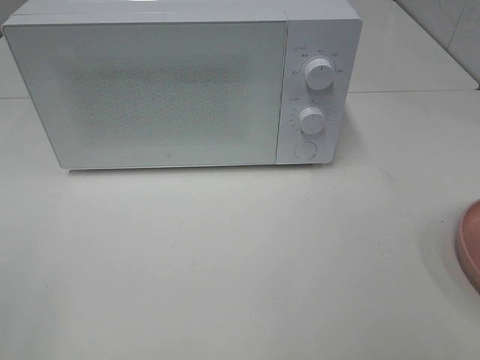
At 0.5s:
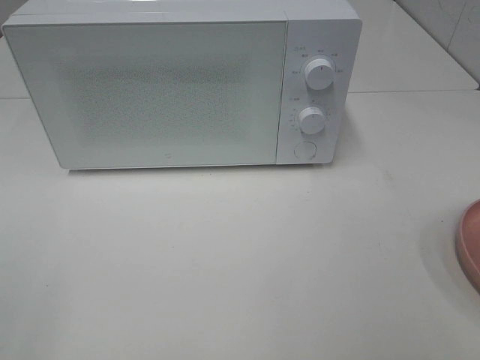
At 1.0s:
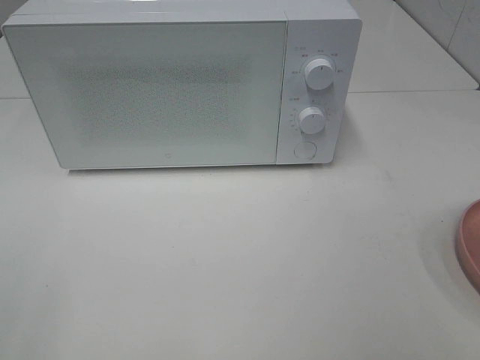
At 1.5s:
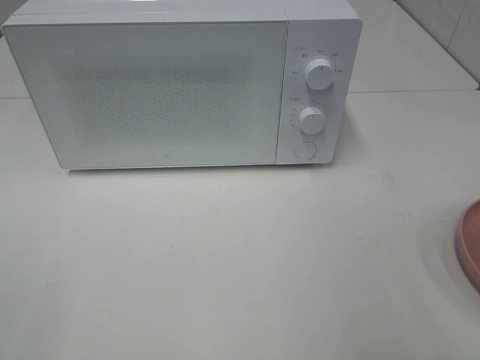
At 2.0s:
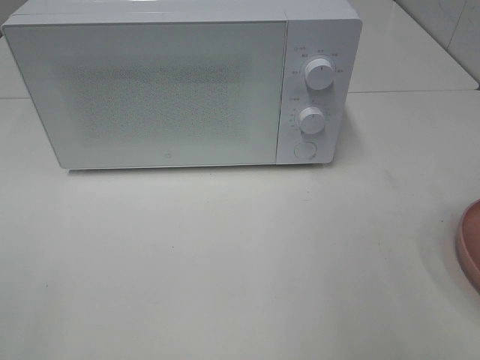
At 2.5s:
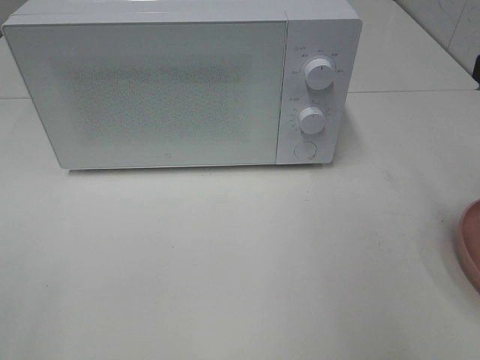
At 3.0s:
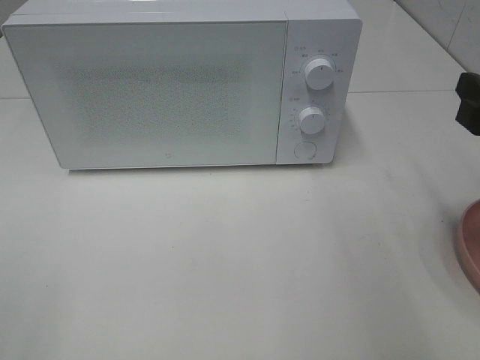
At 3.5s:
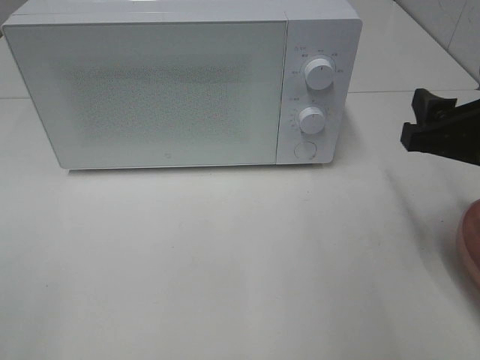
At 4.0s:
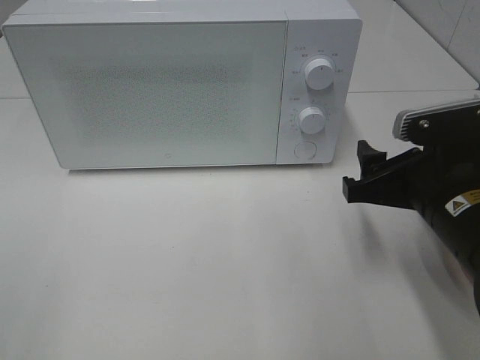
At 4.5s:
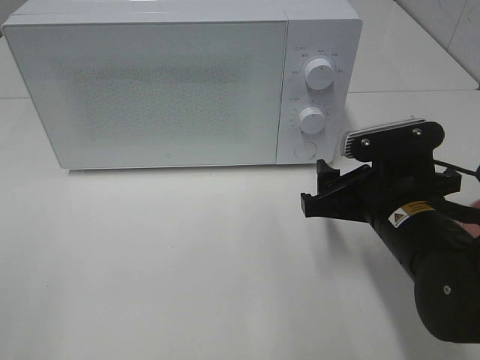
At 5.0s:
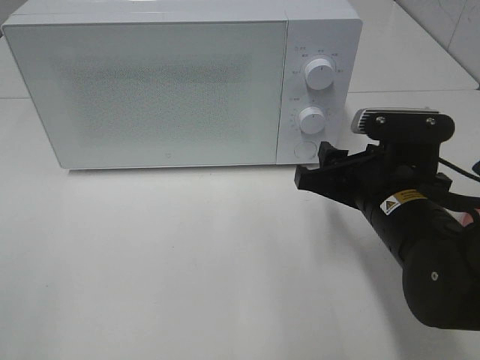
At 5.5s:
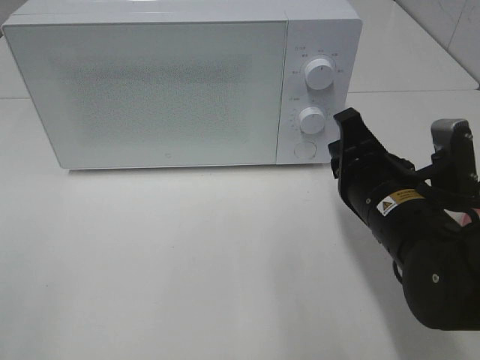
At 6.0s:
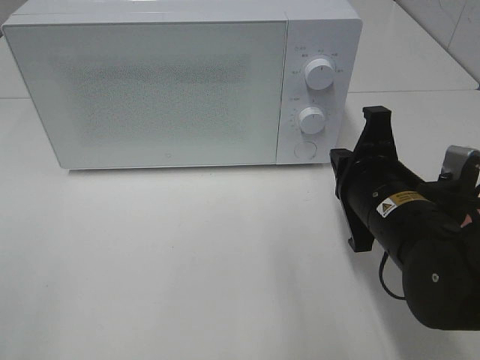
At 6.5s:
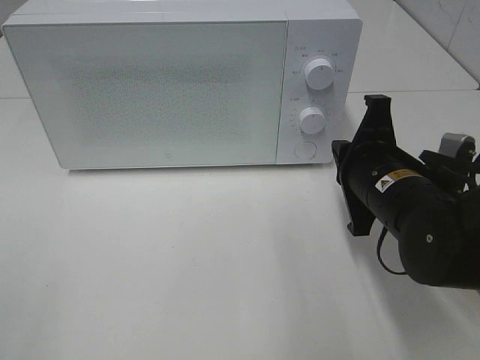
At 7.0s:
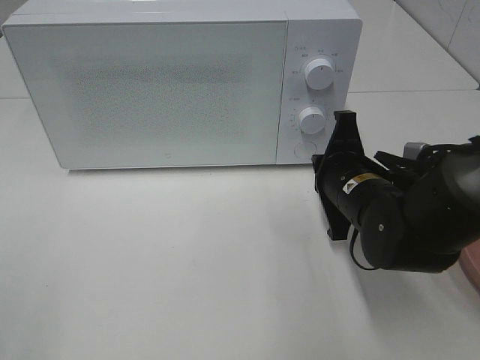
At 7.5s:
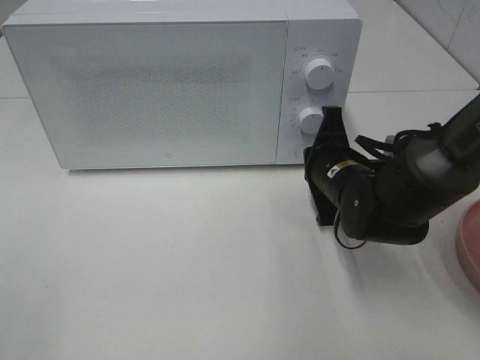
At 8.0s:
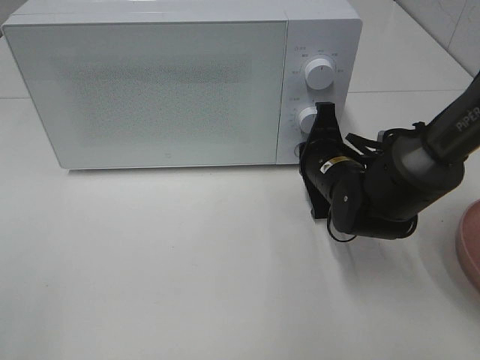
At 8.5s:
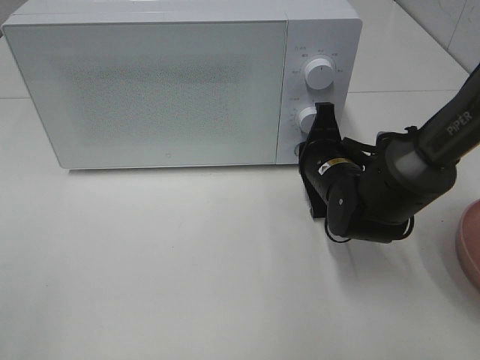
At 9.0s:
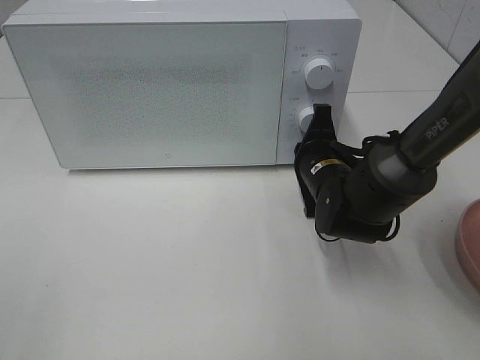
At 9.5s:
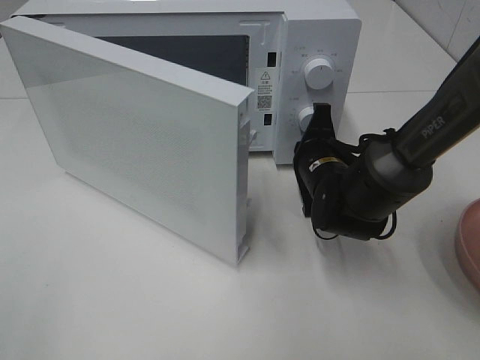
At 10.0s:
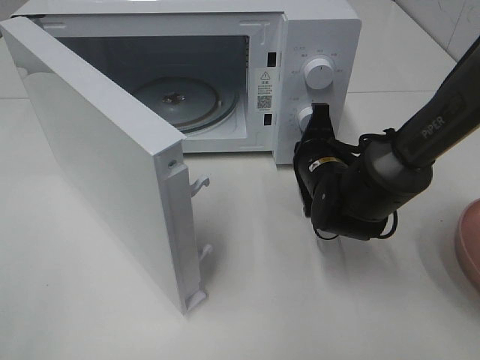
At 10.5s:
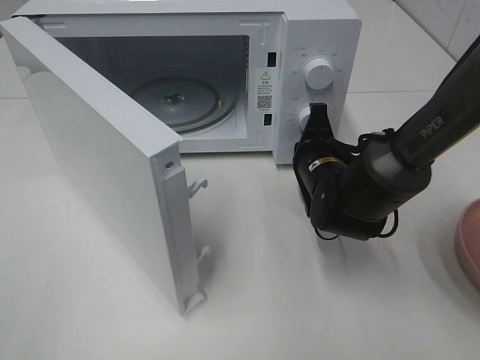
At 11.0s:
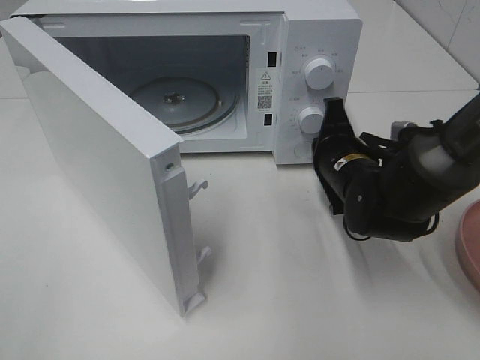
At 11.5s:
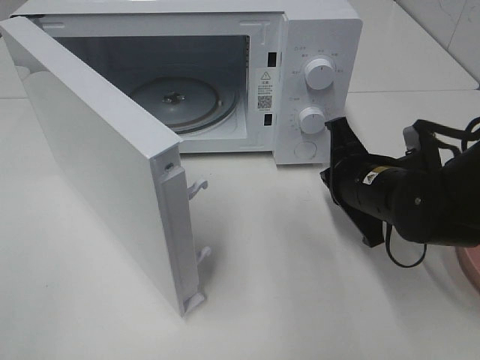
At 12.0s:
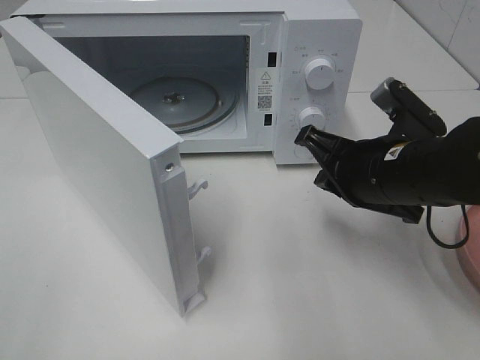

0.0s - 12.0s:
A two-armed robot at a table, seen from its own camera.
Task of the whole recording: Heat the burger.
Step, 0.0s - 11.0s: Right hand: press the switch.
2.0s - 4.0s: The right gripper moves downward, to the left and forward, roughly 20 cm.
4.0s - 6.0s: The right gripper ends up about 5 cm from where it was, and closes up.
6.0s - 8.0s: The right gripper heads forward and downward, covering roughly 10 cm.
10.0s - 12.0s: The right gripper goes roughly 15 cm backward and upward.

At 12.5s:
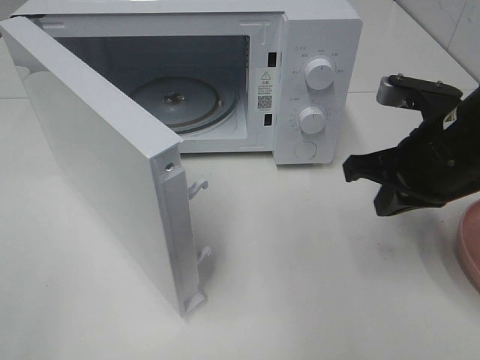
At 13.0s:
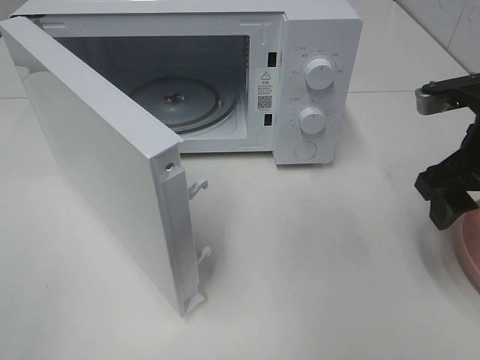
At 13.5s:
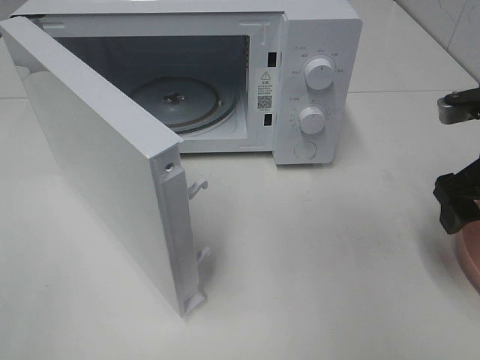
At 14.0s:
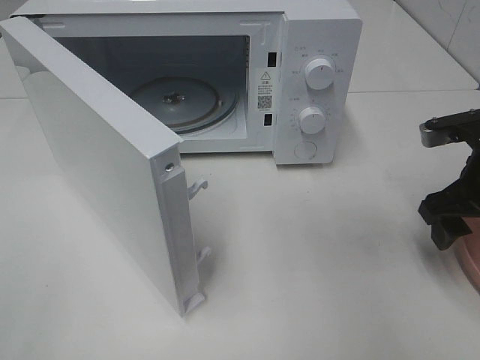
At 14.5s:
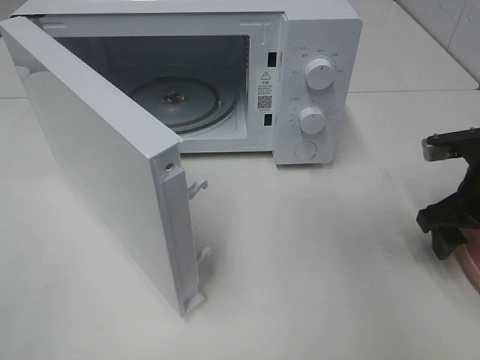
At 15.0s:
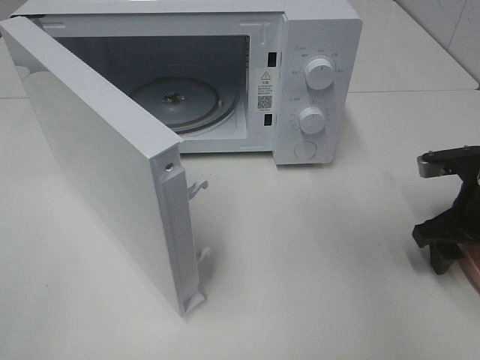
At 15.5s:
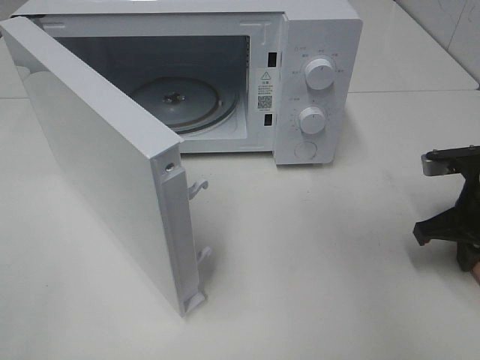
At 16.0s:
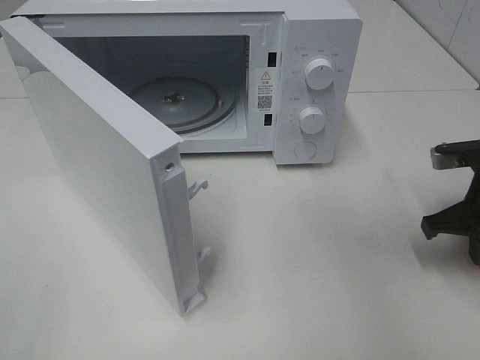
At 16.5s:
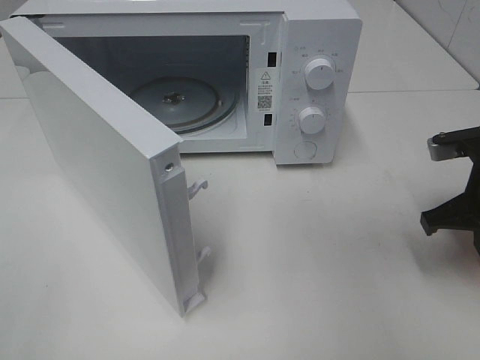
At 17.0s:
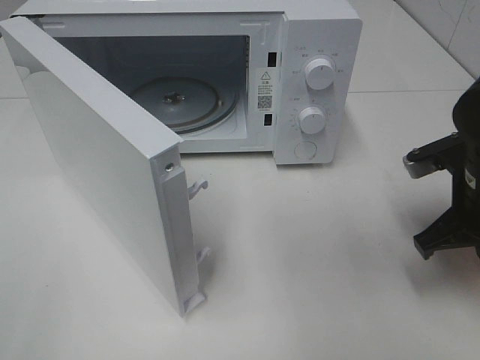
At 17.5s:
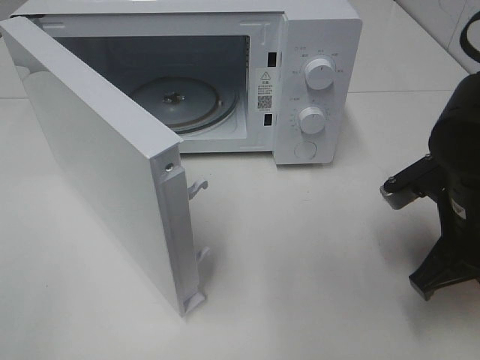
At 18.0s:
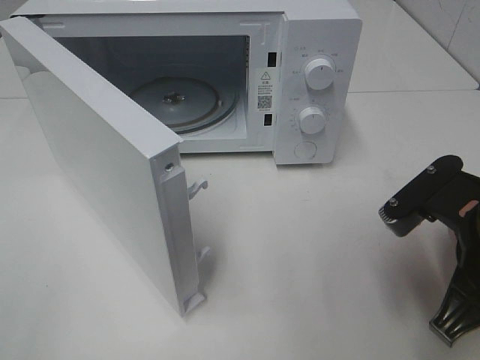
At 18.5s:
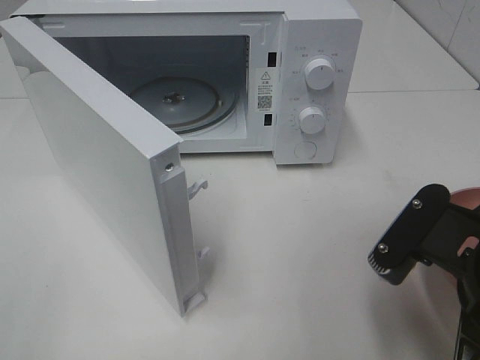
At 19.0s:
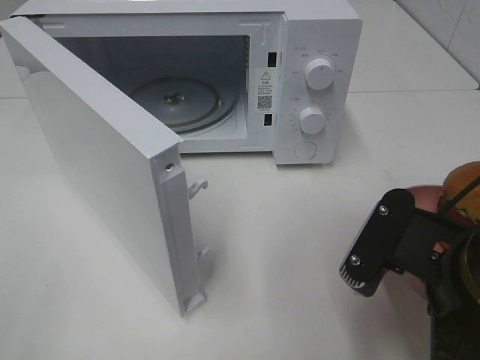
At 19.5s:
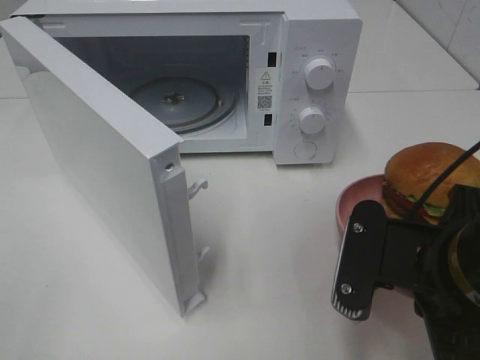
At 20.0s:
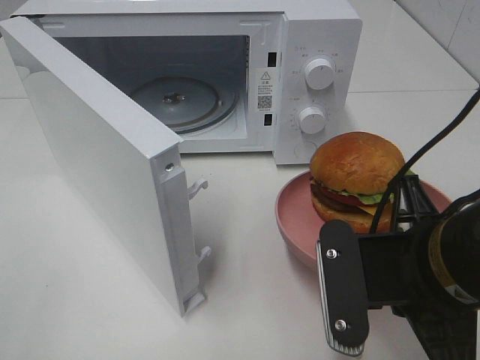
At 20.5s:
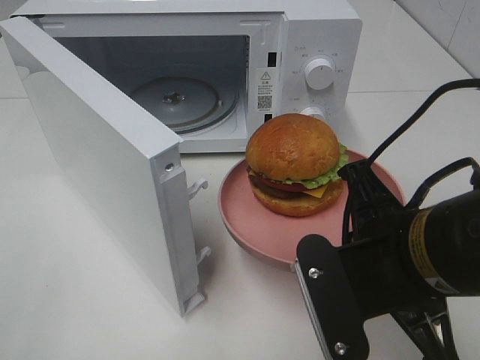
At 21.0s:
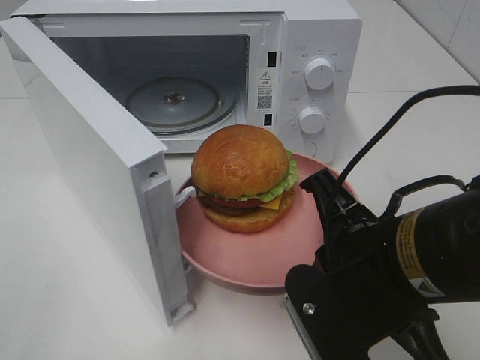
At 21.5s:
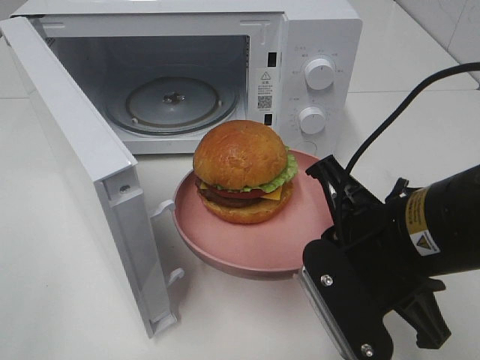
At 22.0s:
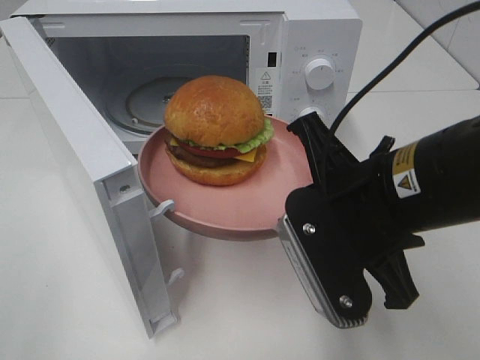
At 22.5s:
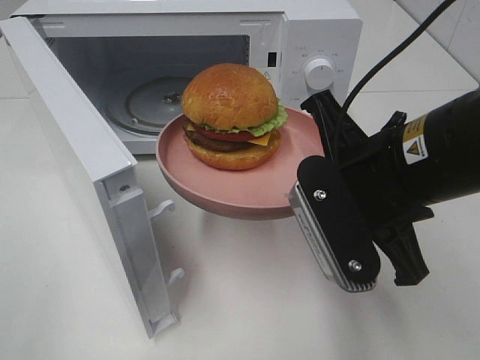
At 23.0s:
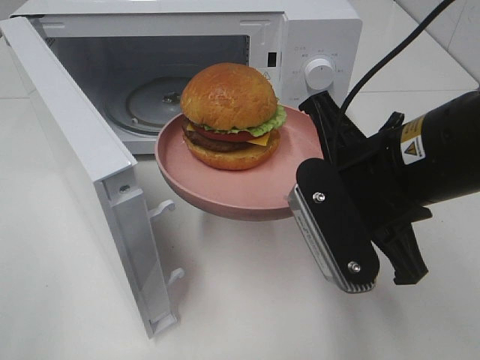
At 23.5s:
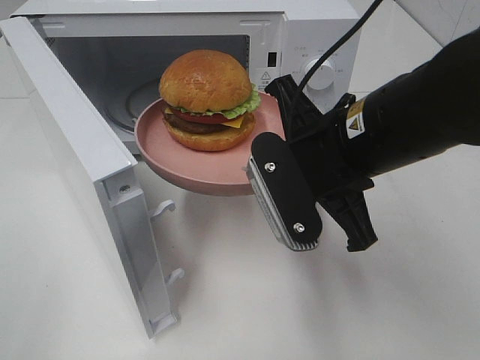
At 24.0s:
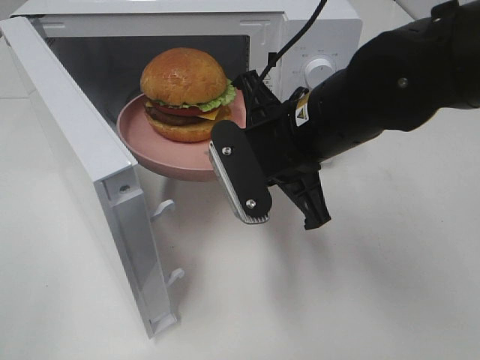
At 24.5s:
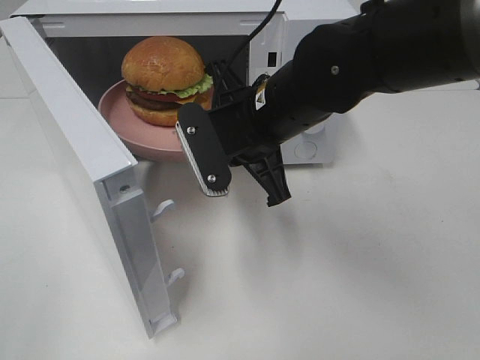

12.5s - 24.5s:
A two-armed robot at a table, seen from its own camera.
Task of the whole recording: Heat the burger.
Step, 12.5s - 15.5s: Right hand: grab the plate with the hamburger.
12.5s - 14.5s: The right gripper shifts roughly 10 cm to the right and downward, and opens its fingers.
14.5s - 16.5s: The right gripper closes.
16.5s - 18.5s: The right gripper is displaced backward and to the left by some 15 cm.
18.5s - 20.5s: The right gripper ends up approximately 5 cm from where it was.
20.5s - 22.5s: The right gripper is displaced forward by some 5 cm.
22.5s - 24.5s: The right gripper goes some 15 cm forward and to the left.

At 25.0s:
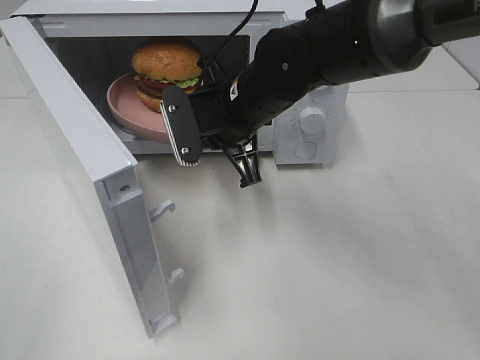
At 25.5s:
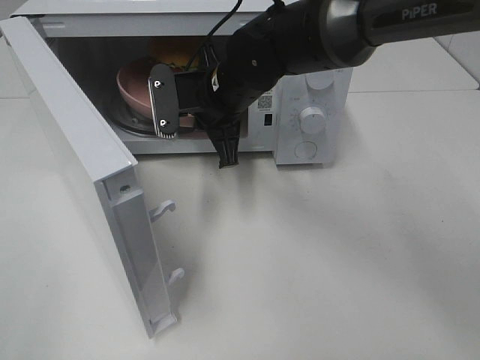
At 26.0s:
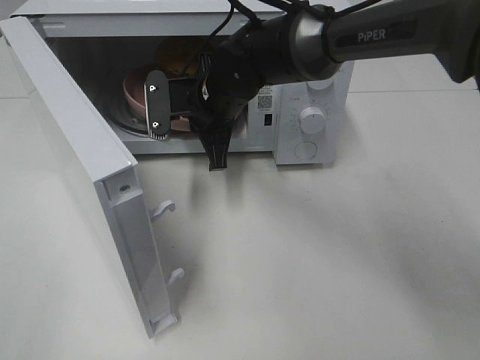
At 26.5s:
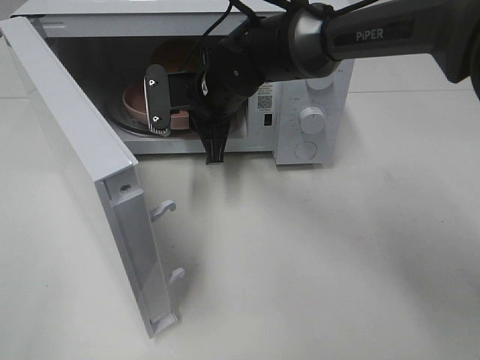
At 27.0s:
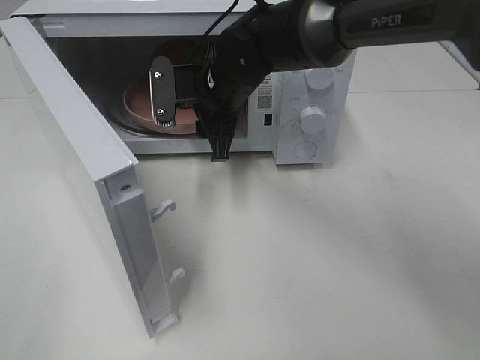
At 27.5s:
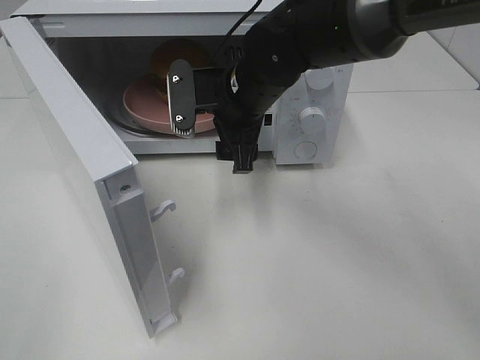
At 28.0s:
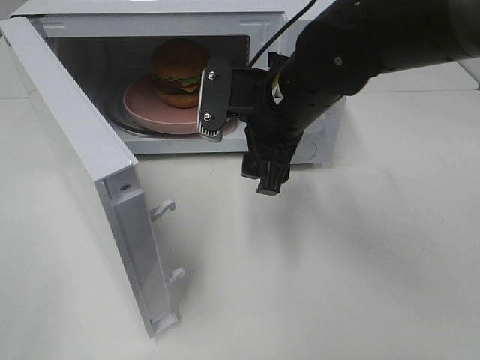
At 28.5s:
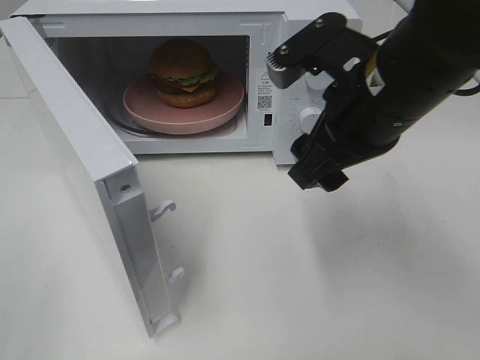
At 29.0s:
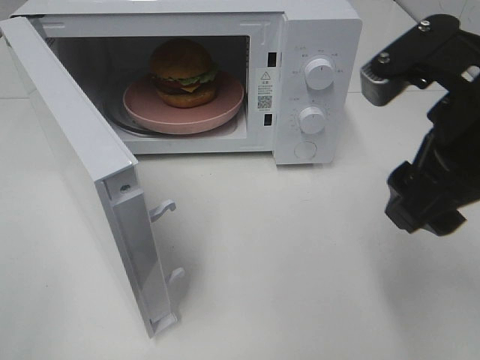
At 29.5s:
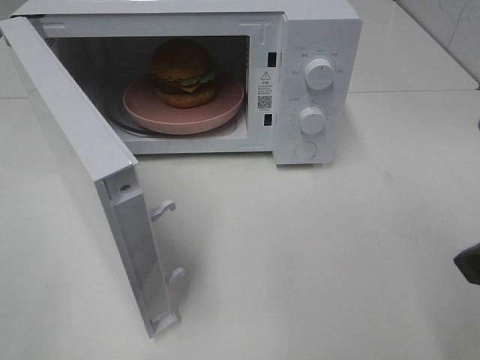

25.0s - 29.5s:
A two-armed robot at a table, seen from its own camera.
Task of the whole recording: Heat the burger.
25.0s - 27.0s: The right gripper goes some 5 cm forward, and opens.
27.0s - 29.5s: The right gripper travels backward, to the right and upward by approximately 35 cm.
